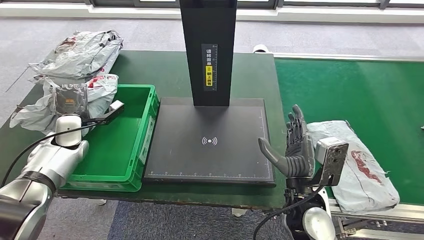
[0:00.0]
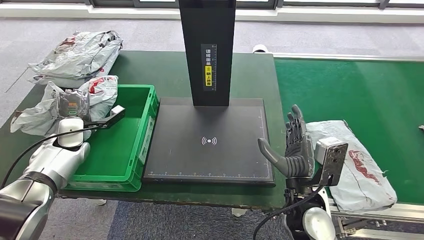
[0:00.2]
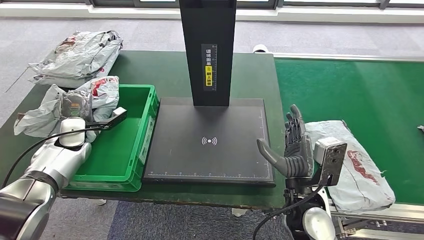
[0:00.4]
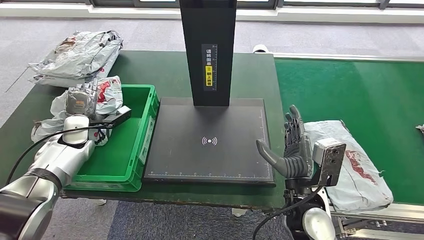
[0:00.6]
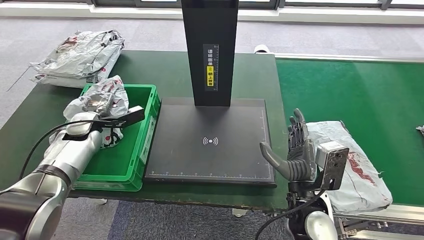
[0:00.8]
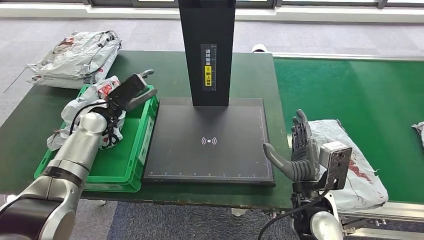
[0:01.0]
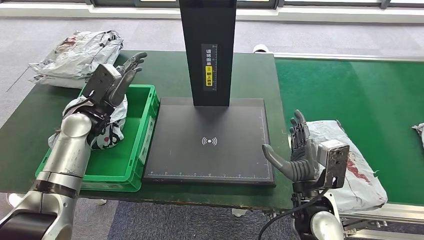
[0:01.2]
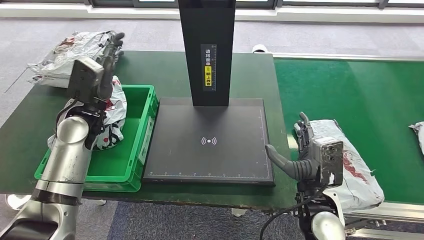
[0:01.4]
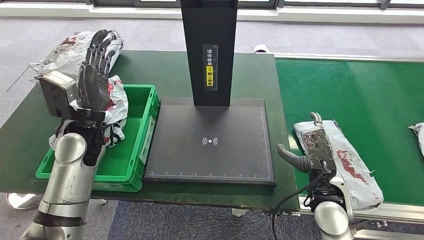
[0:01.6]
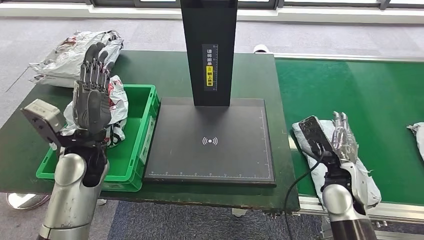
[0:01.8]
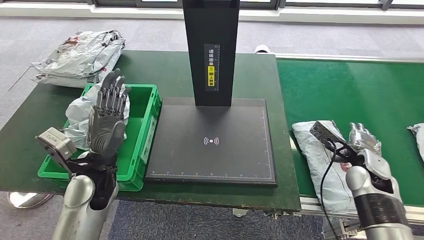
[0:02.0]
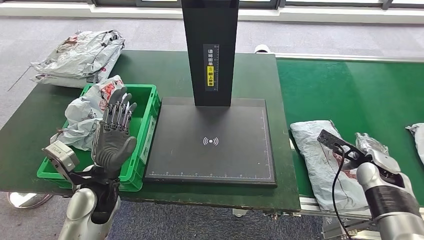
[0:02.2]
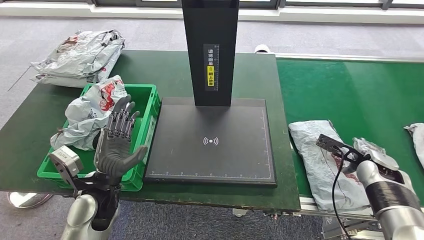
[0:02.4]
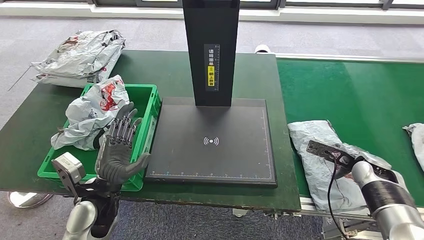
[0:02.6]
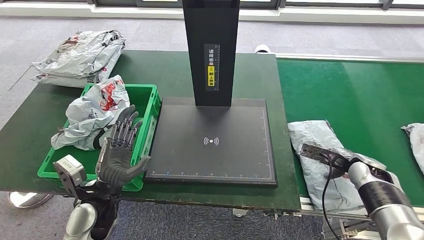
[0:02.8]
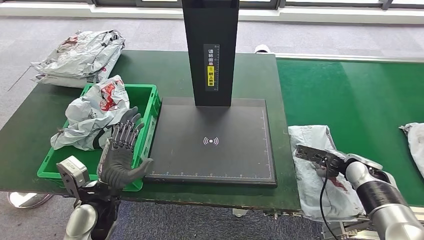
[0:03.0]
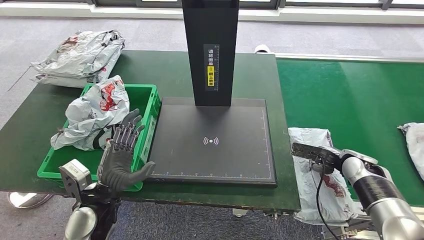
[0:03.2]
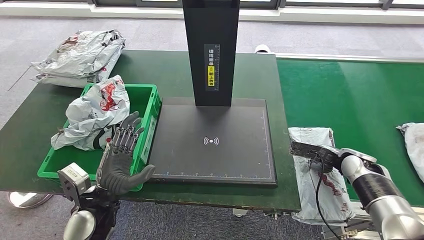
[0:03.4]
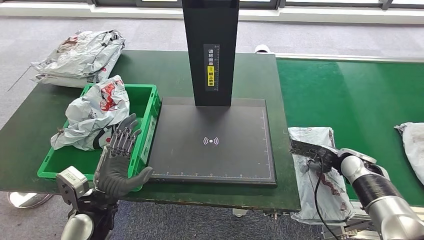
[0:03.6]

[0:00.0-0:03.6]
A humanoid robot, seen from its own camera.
Step, 0:00.0 to 0:01.8: Put the parcel inside the courier box.
Step, 0:02.4 to 0:03.6: Pick up the parcel from the conveyor belt.

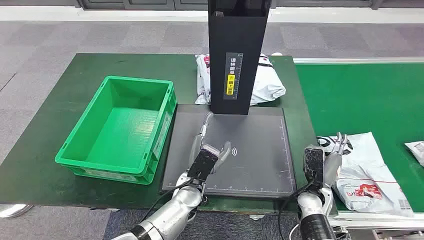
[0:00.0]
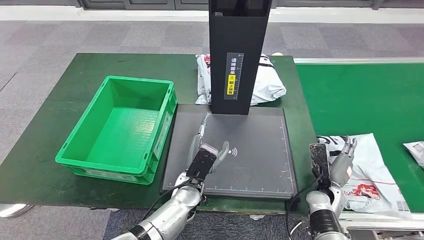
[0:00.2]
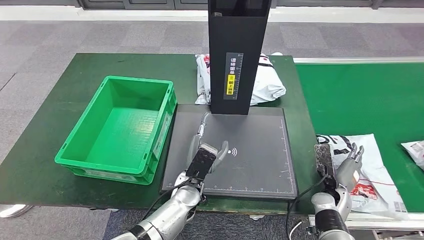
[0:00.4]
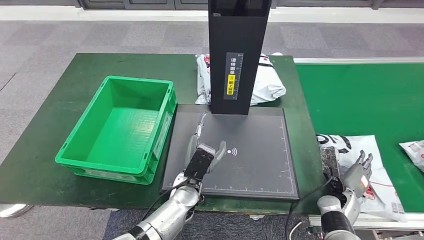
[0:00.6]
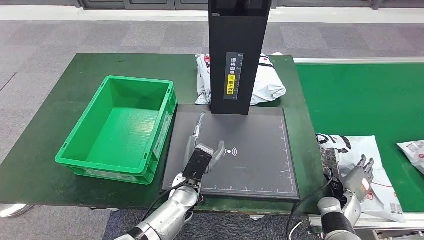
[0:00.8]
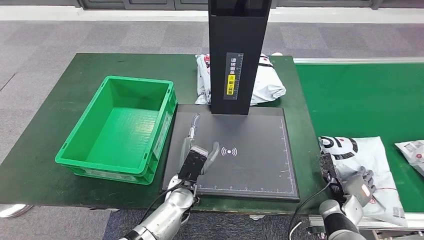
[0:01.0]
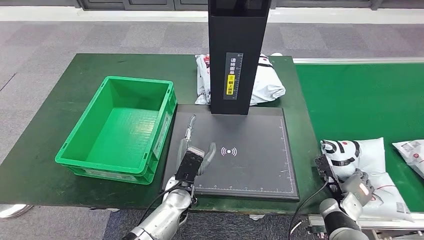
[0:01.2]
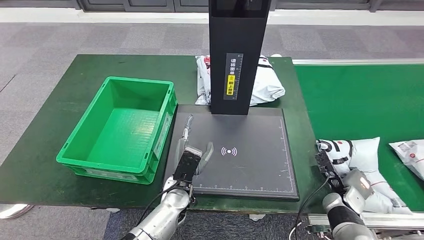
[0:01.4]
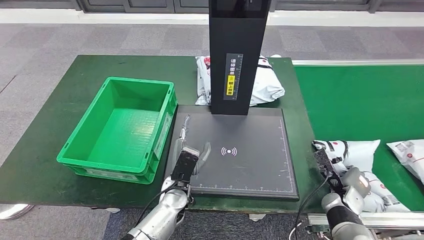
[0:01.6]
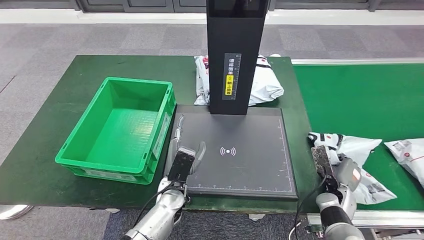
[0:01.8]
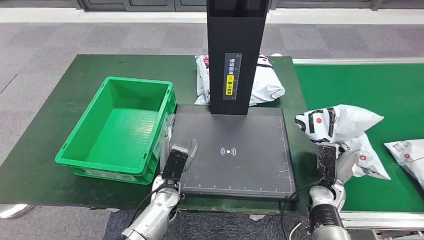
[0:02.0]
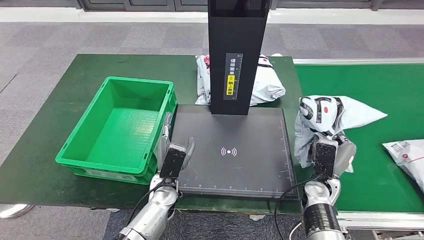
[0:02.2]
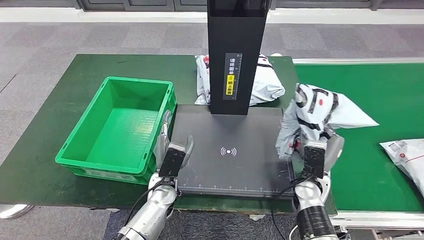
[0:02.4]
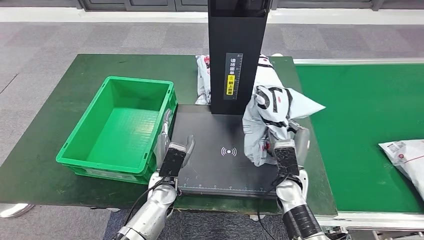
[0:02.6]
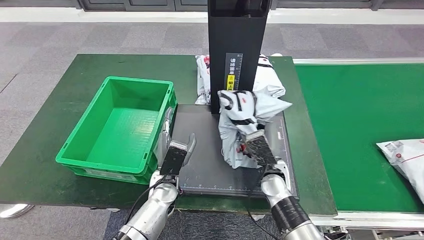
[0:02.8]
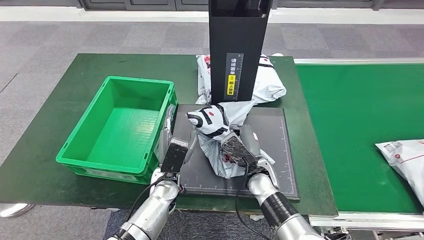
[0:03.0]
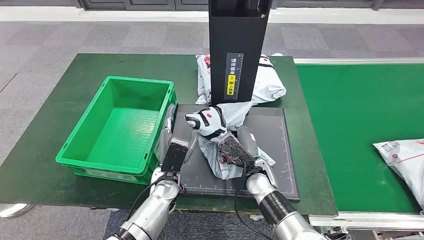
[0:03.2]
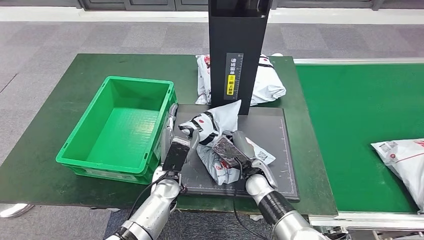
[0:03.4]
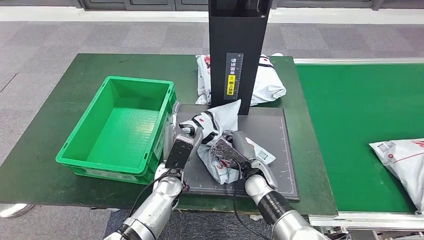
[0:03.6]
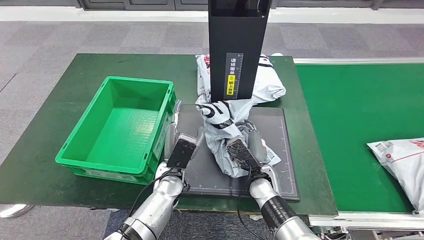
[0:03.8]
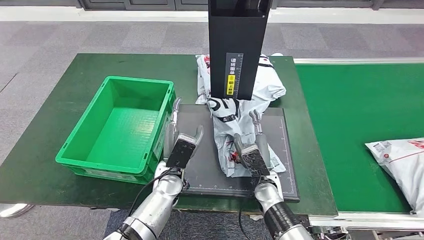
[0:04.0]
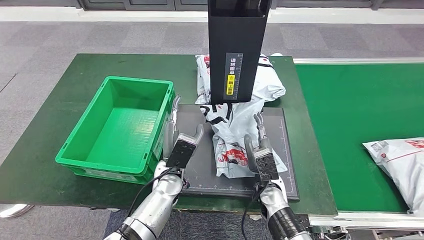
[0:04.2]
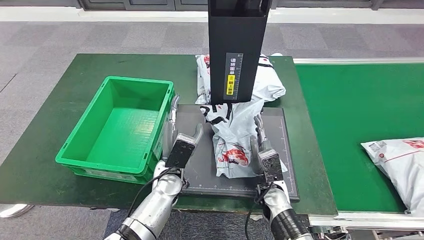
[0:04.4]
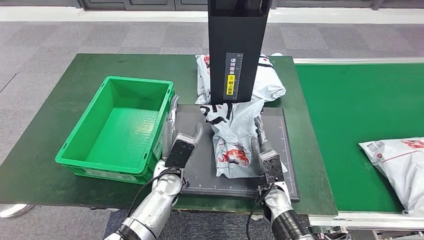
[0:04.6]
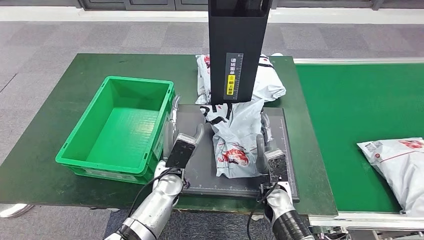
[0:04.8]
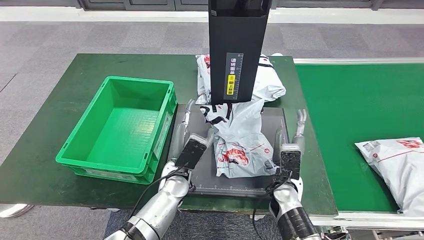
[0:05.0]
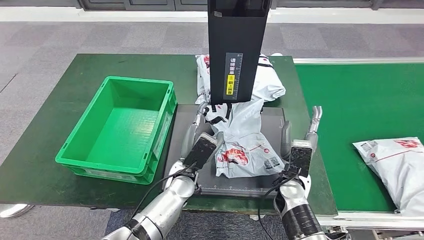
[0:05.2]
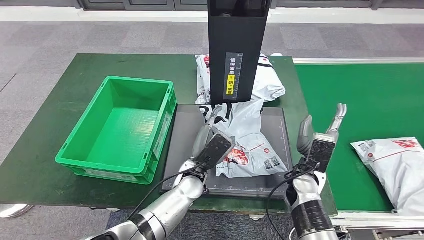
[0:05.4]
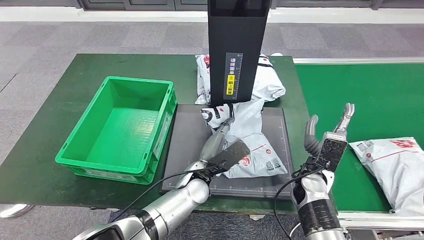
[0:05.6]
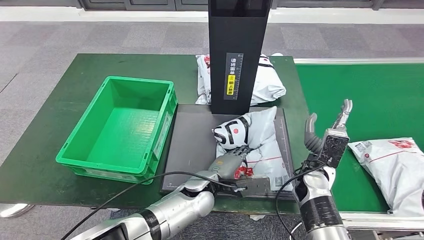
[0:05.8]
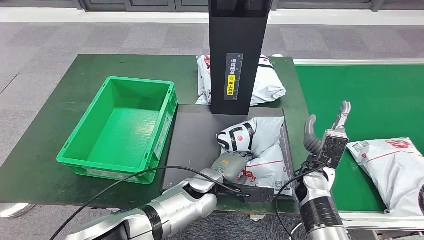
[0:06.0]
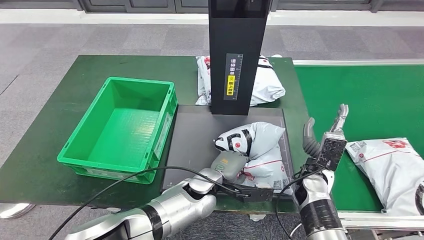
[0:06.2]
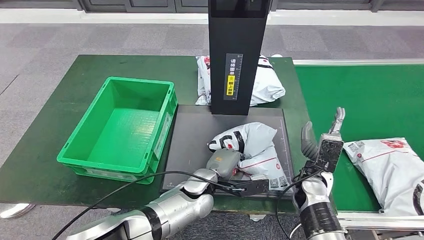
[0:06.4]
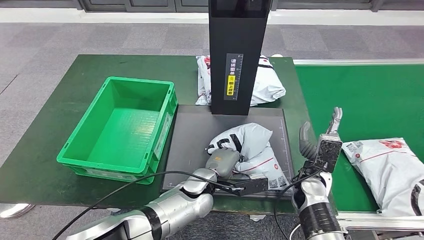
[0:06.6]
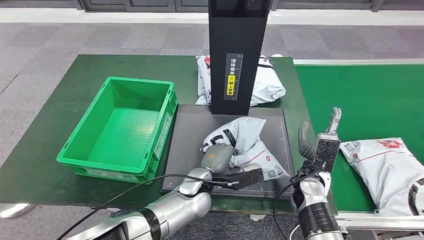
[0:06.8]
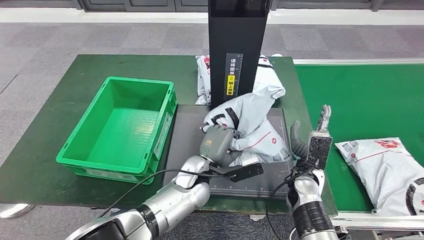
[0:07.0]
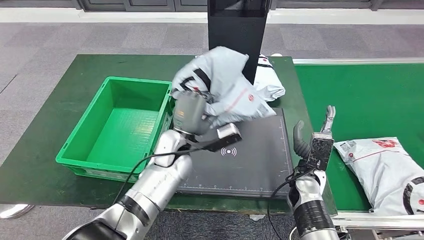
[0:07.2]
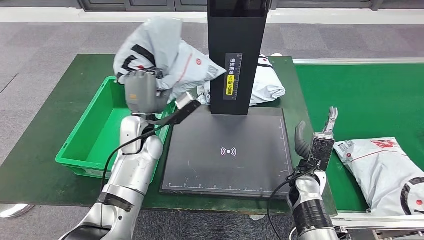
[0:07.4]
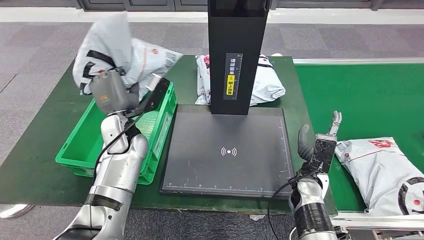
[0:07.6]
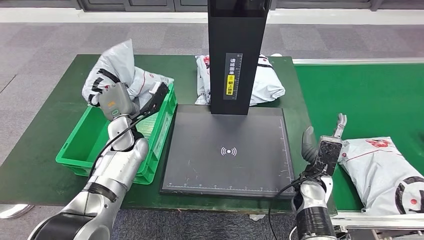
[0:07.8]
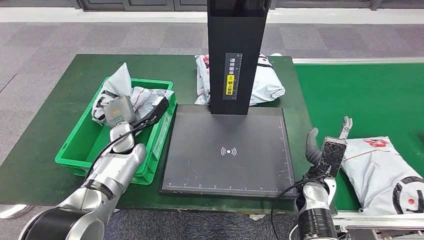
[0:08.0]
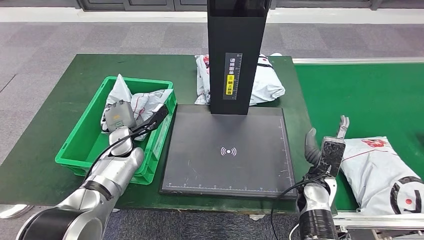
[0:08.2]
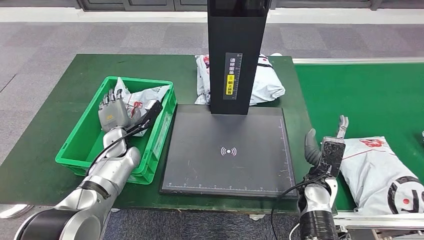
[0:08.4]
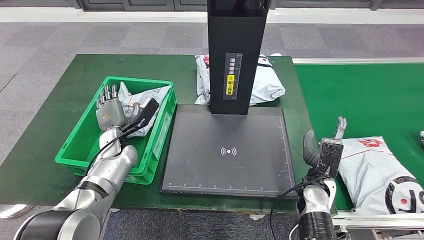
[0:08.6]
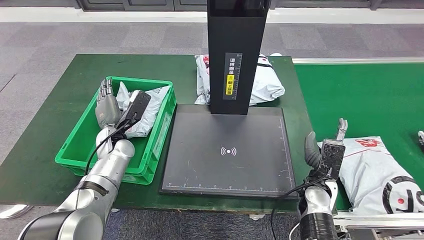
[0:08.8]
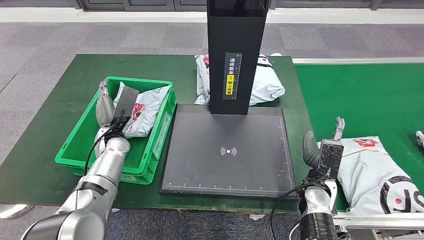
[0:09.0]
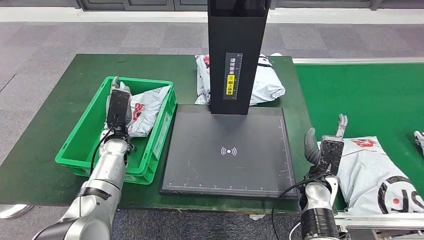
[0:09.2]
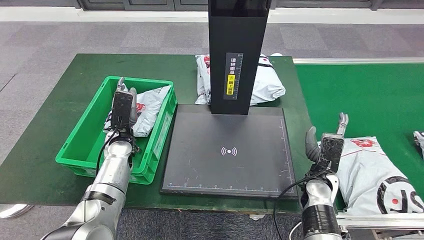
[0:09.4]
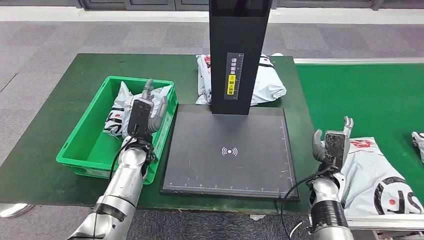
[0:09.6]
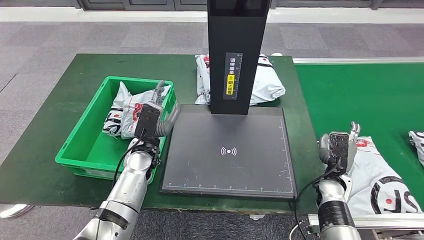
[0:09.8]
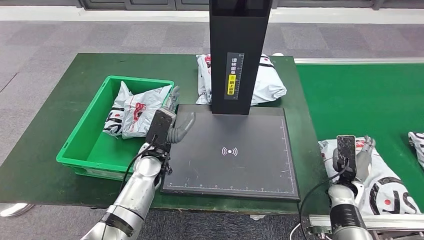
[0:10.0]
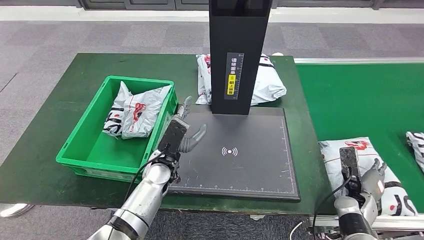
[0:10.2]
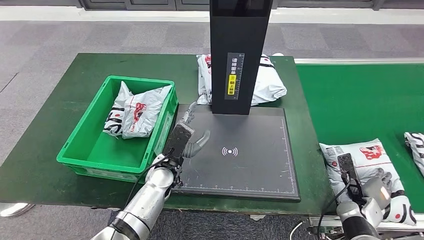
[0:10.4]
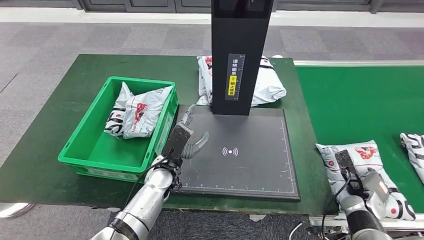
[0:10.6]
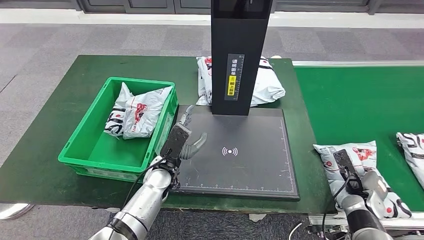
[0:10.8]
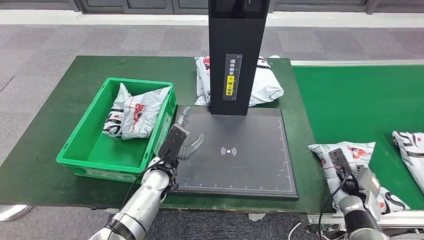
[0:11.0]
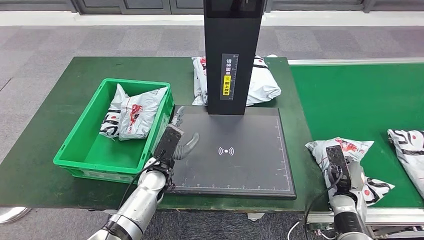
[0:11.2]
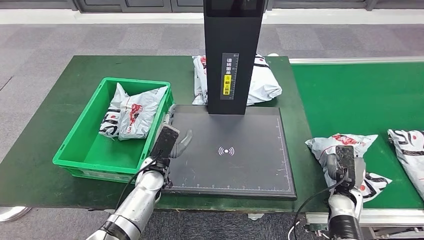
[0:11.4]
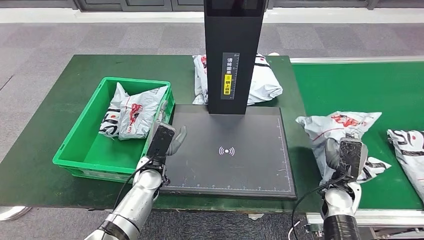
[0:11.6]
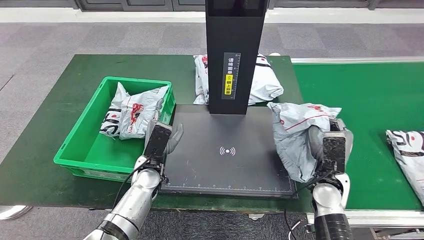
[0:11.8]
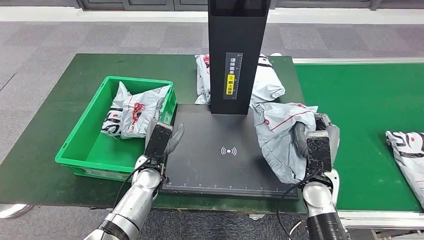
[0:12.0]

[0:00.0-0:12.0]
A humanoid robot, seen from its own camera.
Step, 0:00.0 to 0:01.8: Take the parcel off the conveyor belt.
Step, 0:02.0 to 0:04.4: Place the parcel onto the inbound machine.
Step, 0:04.6 to 0:07.0: Pick up the parcel from the inbound machine.
Step, 0:07.4 to 0:09.6: Put the parcel inside the courier box.
Step, 0:09.8 to 0:11.8: Pick up the parcel from the conveyor belt.
0:03.0 to 0:04.4: The right hand changes place by about 5 cm.

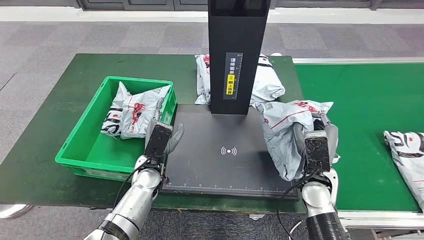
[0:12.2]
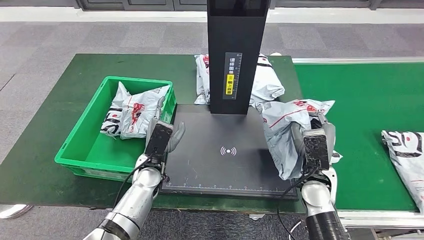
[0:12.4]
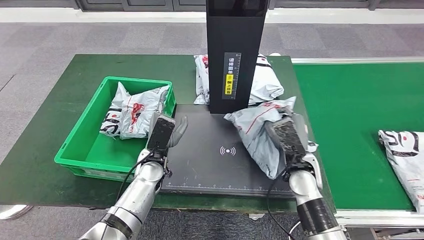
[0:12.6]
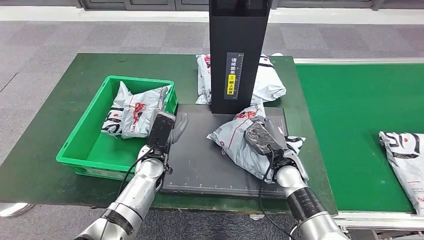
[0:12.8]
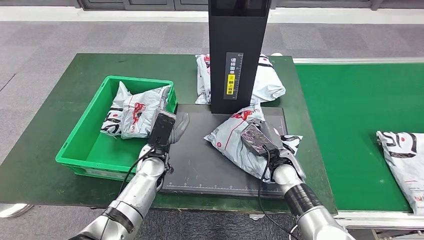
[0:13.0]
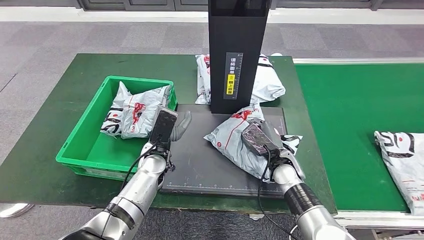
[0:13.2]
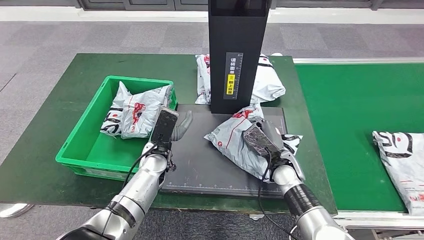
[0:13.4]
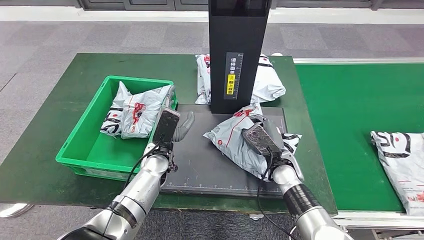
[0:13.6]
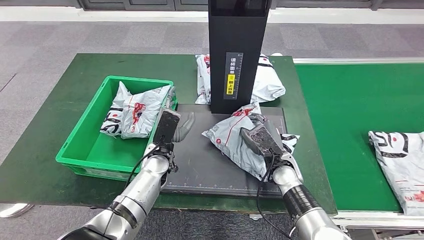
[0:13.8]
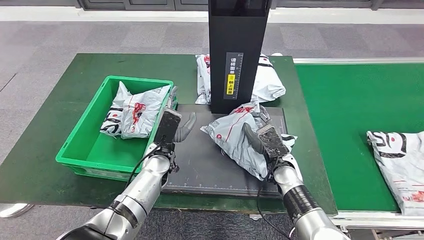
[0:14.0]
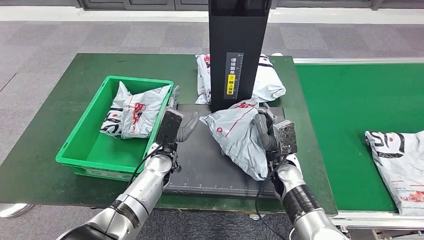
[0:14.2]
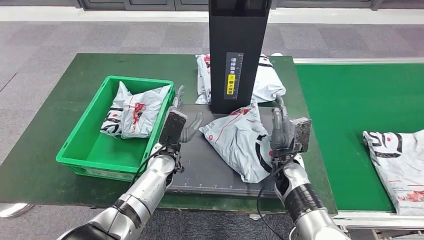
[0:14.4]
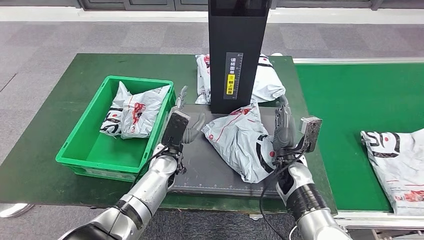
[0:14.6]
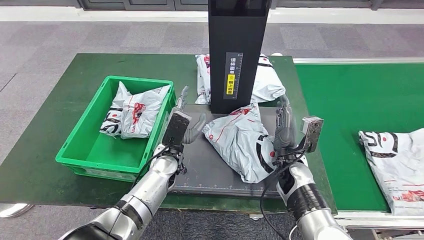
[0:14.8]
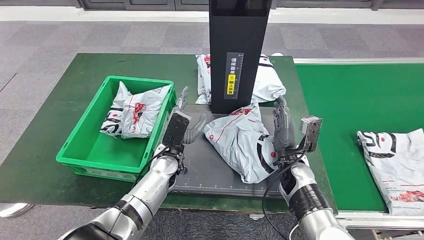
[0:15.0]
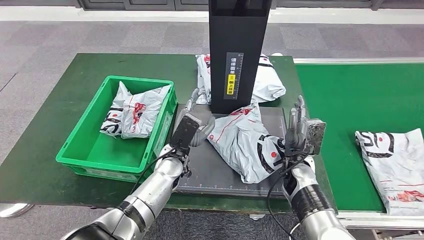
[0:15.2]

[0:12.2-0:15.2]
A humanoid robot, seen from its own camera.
Step, 0:12.2 to 0:14.8: Place the parcel onto the inbound machine.
0:12.2 to 0:13.8: The right hand shifts about 5 cm to the left.
